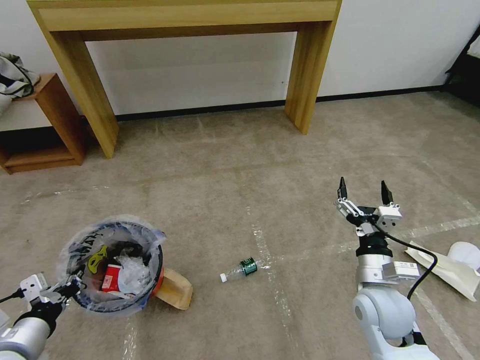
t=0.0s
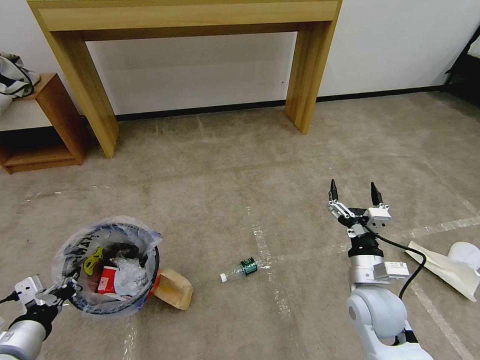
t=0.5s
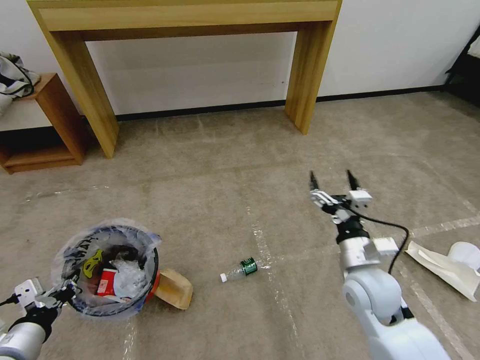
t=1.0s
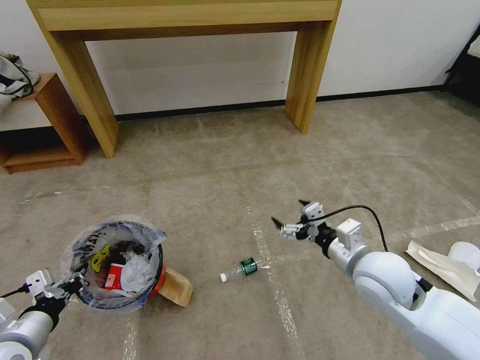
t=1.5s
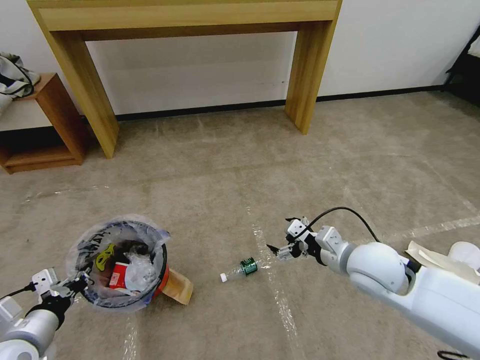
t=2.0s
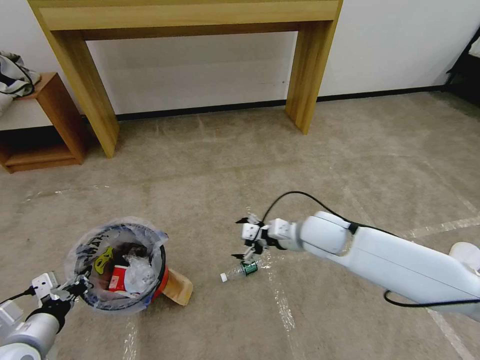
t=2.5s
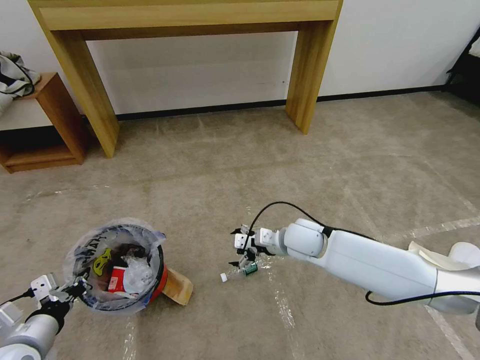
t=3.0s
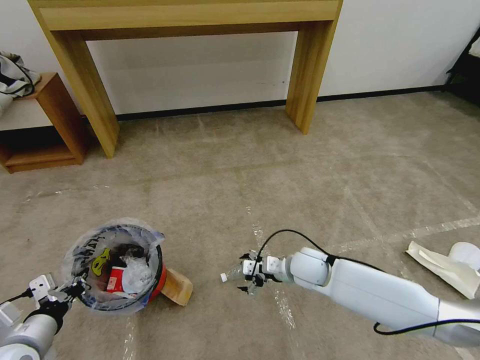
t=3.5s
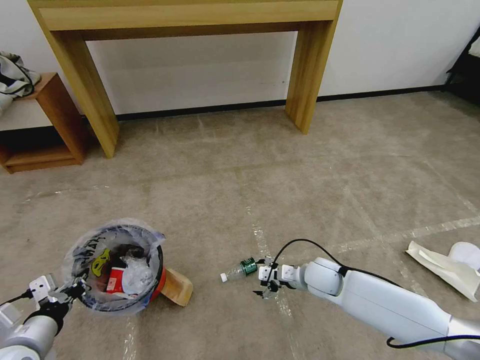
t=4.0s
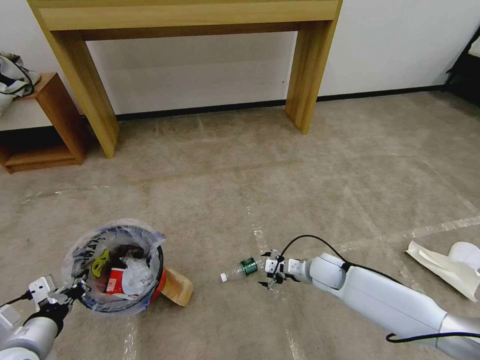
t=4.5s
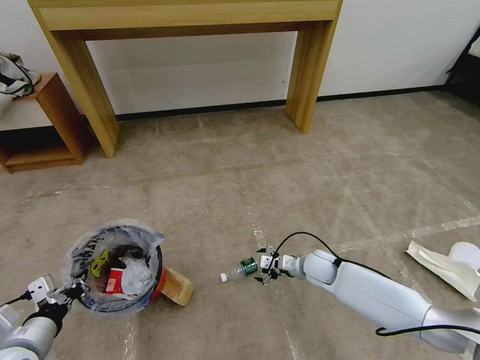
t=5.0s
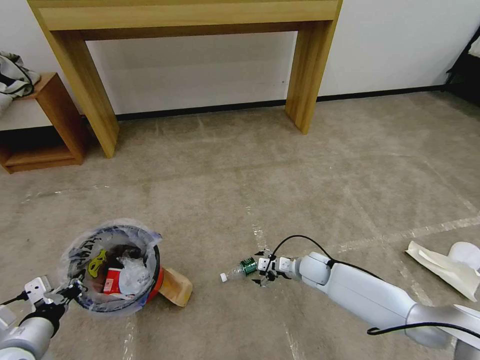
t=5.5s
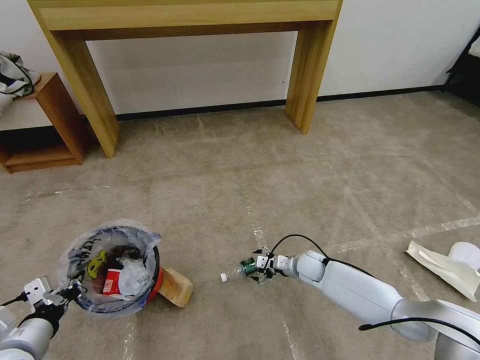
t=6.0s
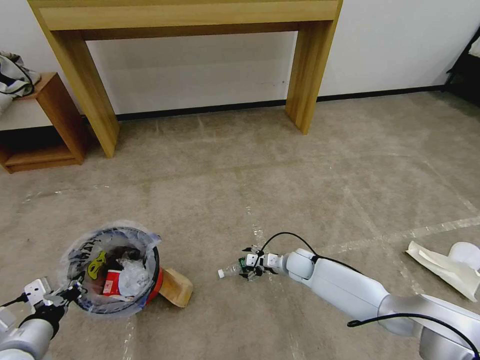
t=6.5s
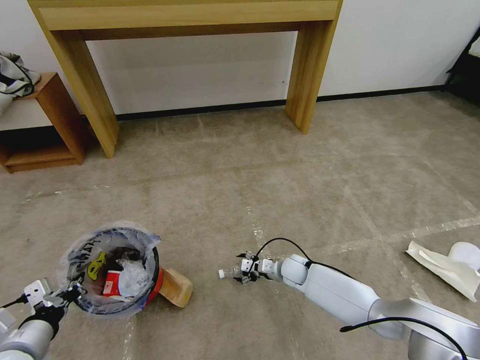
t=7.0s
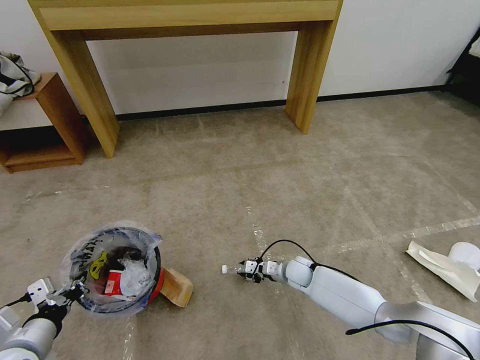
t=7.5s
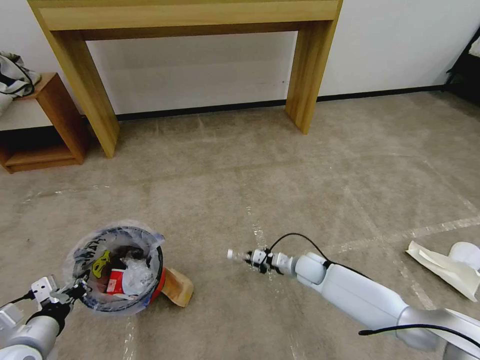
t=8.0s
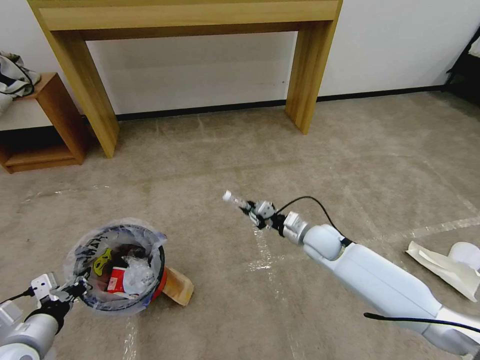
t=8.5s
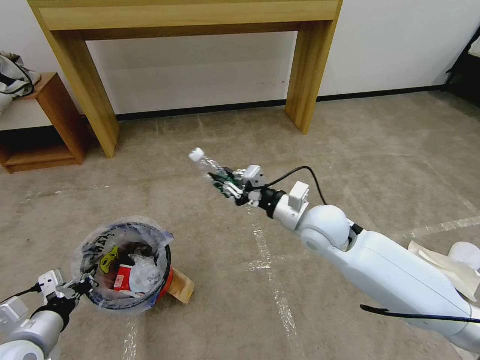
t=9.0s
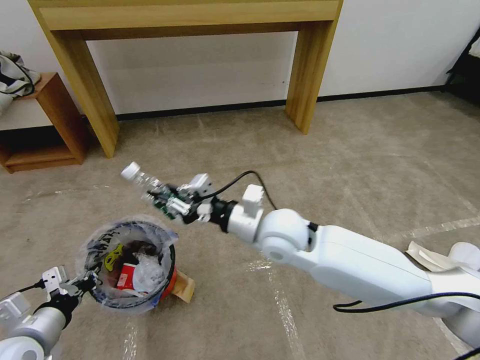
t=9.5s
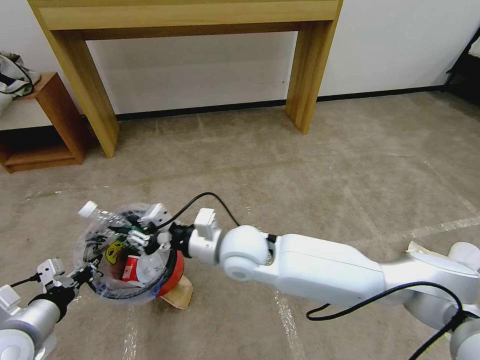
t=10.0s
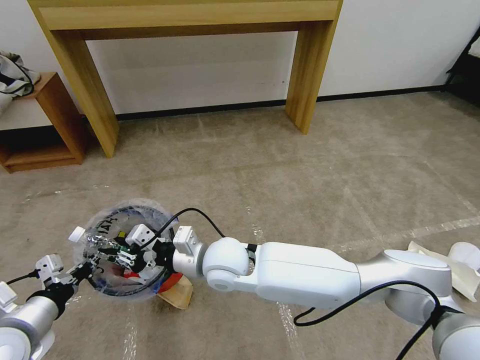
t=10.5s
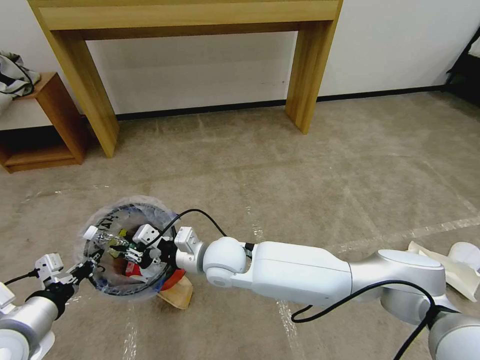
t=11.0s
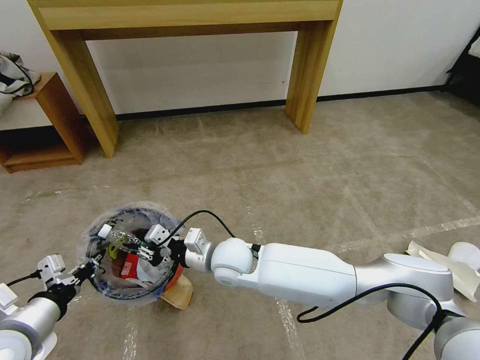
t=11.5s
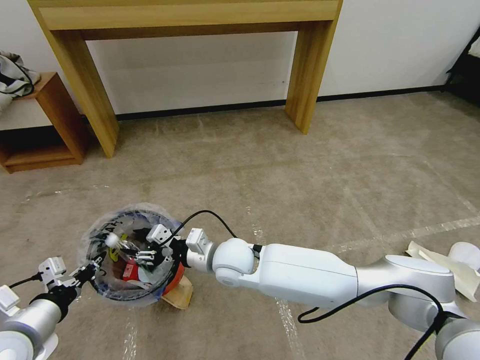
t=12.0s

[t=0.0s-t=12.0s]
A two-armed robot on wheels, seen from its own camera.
Task of the whole recording: Pick up the trash bin and place the garbage on the floor into it.
t=0.0s to t=2.0s: The right gripper goes about 10 cm upward and forward.
t=2.0s to t=4.0s: The right gripper travels downward by approximately 15 cm.
t=4.0s to t=6.0s: The right gripper goes approximately 10 cm downward and forward.
t=6.0s to t=8.0s: The right gripper closes up.
t=8.0s to t=10.0s: The left gripper heads upward, covering about 5 cm. The right gripper is displaced upward and to the left by approximately 35 cm.
t=10.0s to t=12.0s: The right gripper goes about 10 cm downward, and opens.

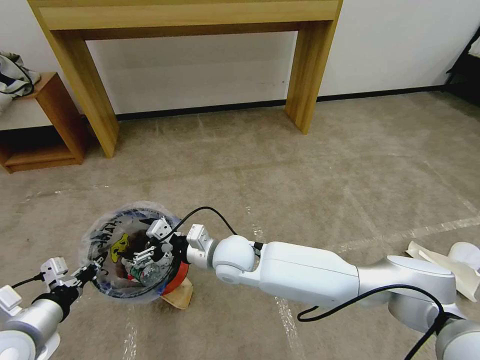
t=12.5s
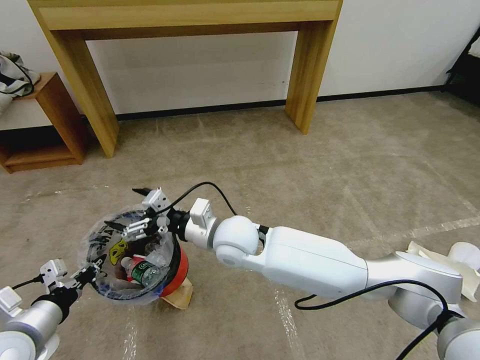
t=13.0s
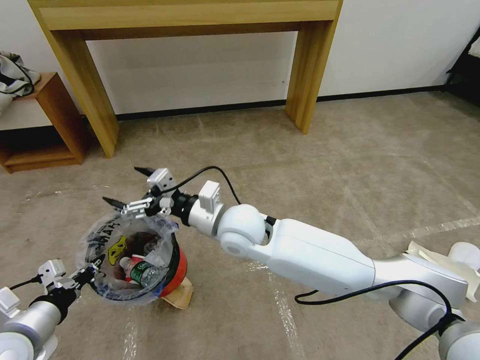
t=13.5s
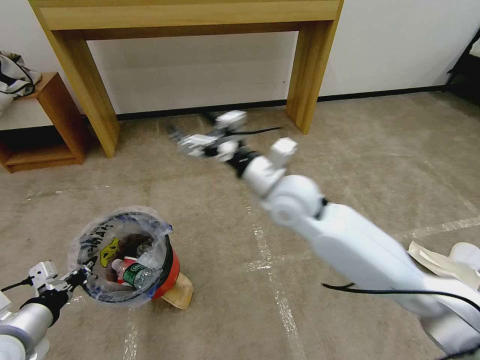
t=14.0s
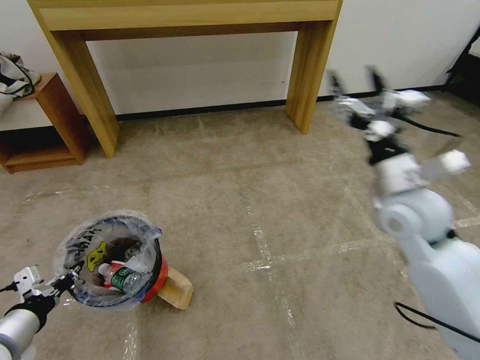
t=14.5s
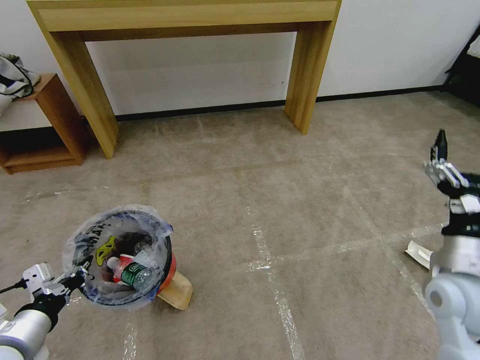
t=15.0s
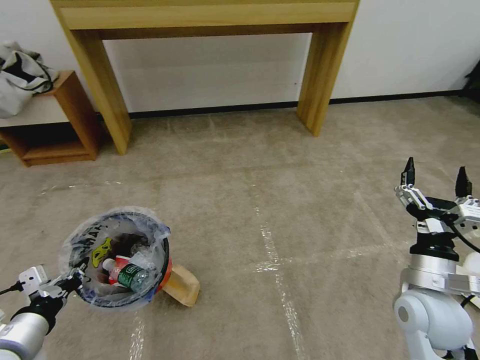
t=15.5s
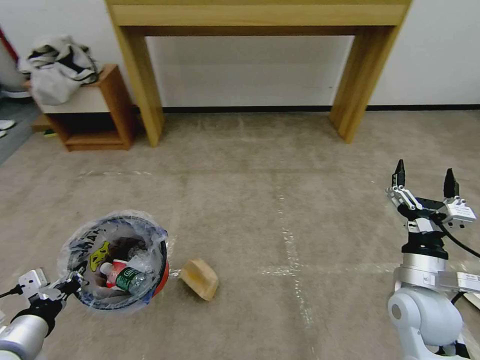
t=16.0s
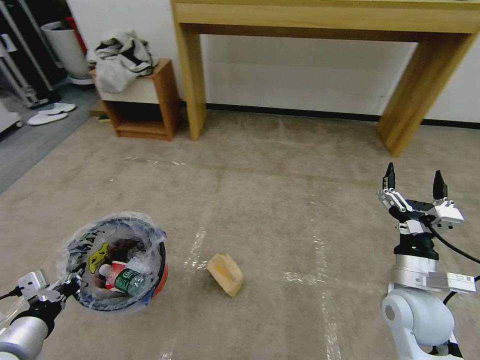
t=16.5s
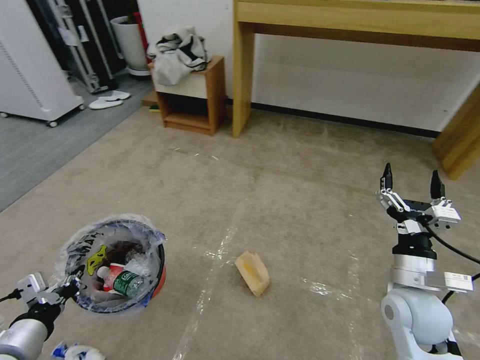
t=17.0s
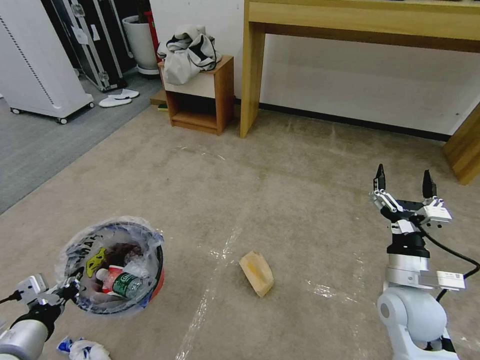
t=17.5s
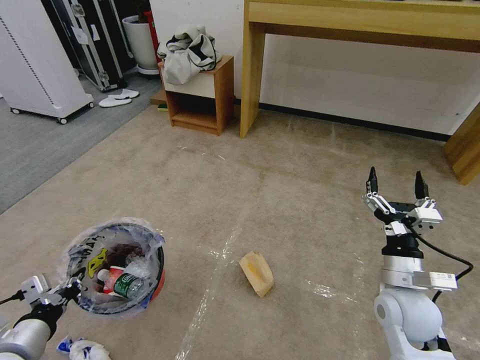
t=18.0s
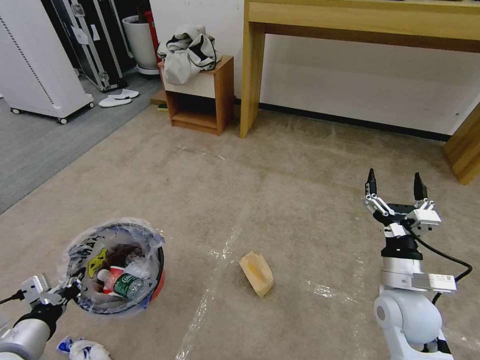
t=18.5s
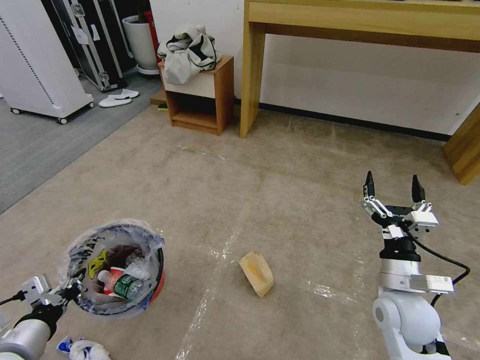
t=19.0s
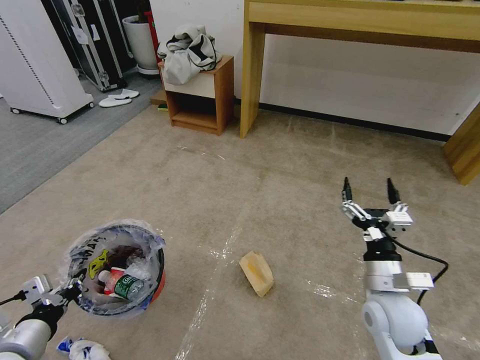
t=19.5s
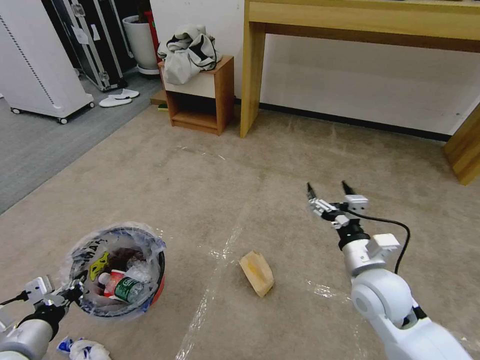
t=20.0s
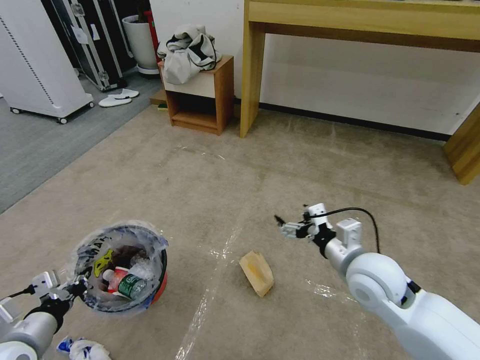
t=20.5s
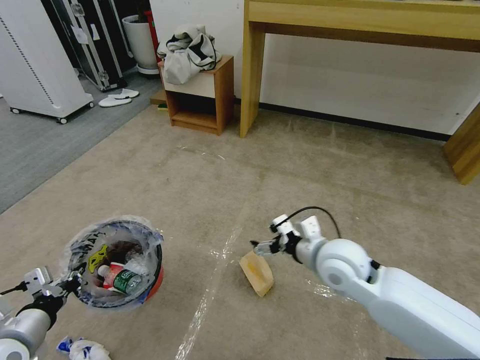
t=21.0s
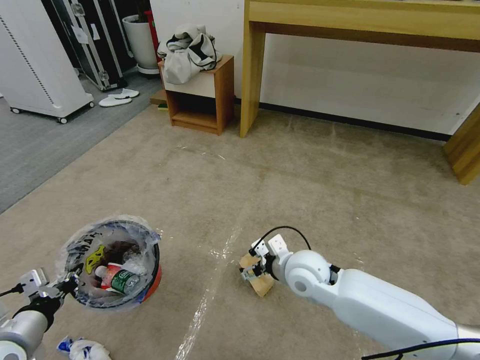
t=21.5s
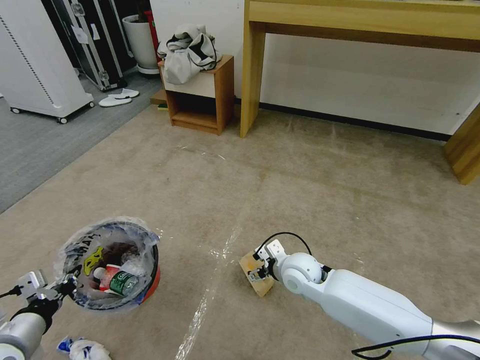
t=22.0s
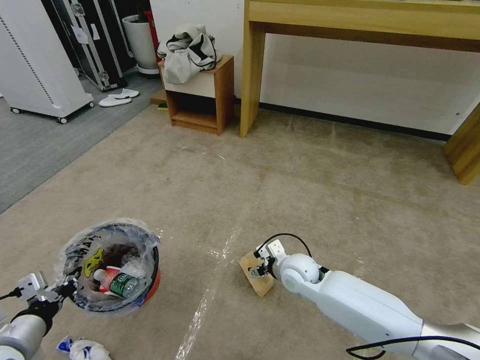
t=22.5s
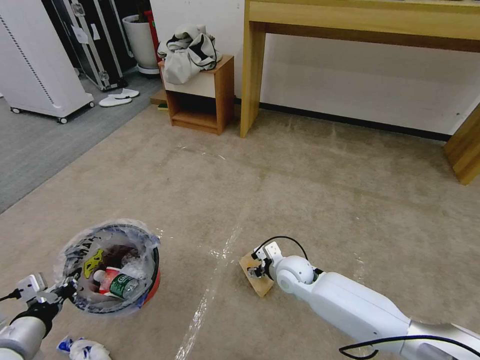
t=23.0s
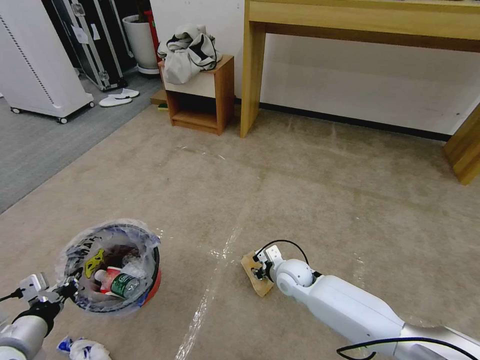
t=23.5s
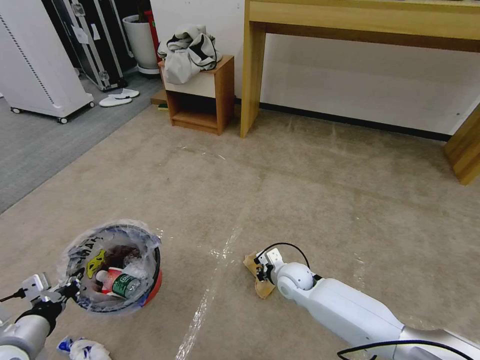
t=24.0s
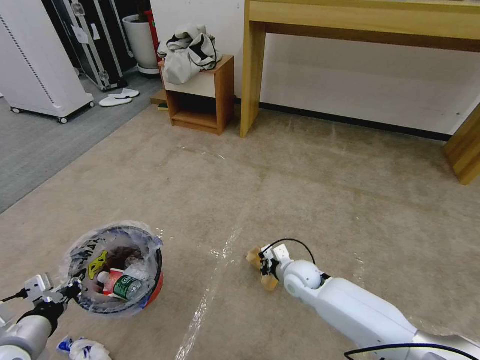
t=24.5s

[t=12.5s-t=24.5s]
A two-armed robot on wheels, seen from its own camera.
Task of the whole recording: Pick up the trash bin and place the garbage on the floor into it.
t=12.5s to t=14.5s: The right gripper heads to the right and upward, covering some 35 cm.
t=14.5s to t=16.5s: The right gripper goes some 20 cm downward and backward.
t=18.5s to t=20.5s: The right gripper is displaced to the left by some 5 cm.
t=20.5s to t=22.5s: The right gripper travels downward, to the left and forward by roughly 20 cm.
t=22.5s to t=24.5s: The right gripper closes up.

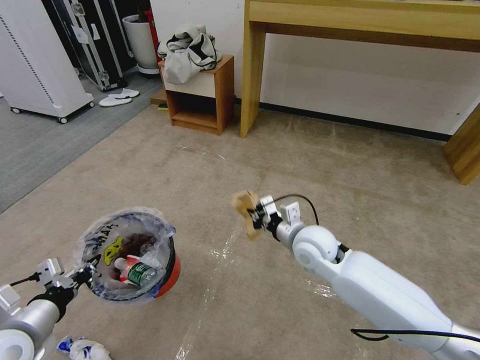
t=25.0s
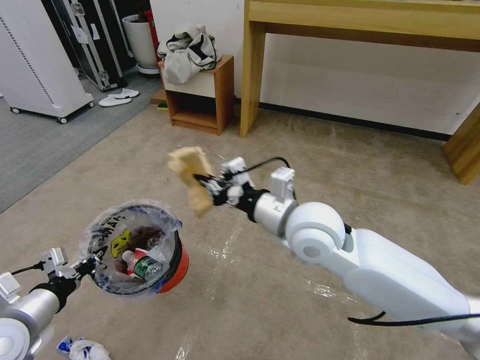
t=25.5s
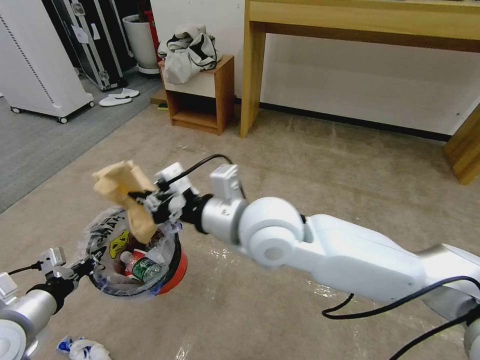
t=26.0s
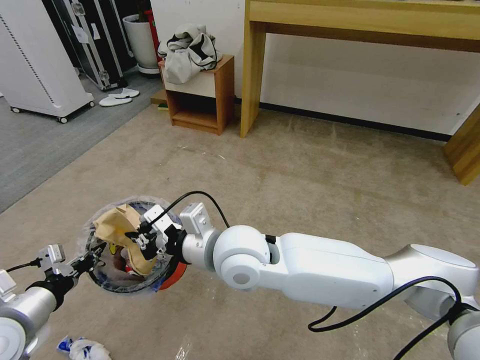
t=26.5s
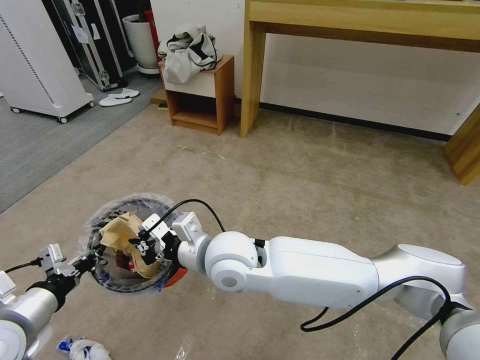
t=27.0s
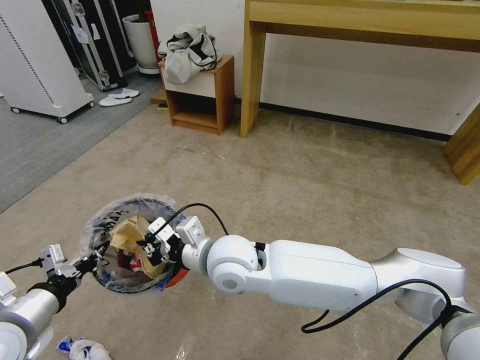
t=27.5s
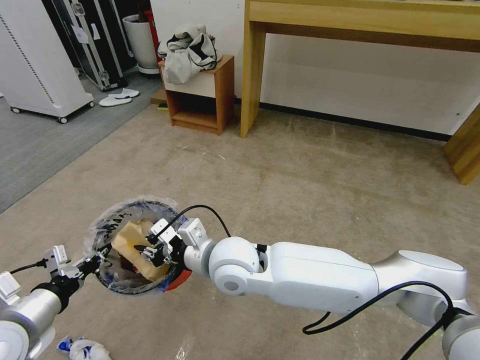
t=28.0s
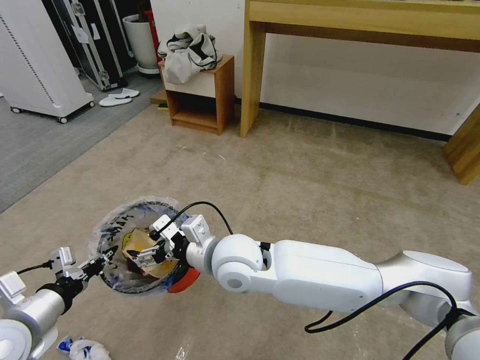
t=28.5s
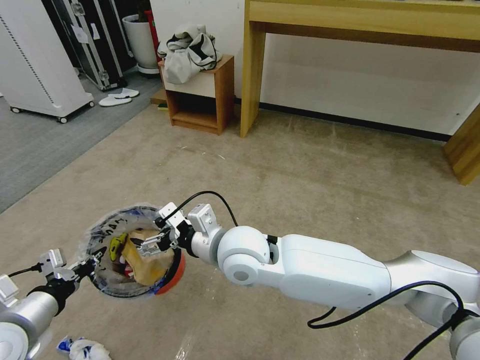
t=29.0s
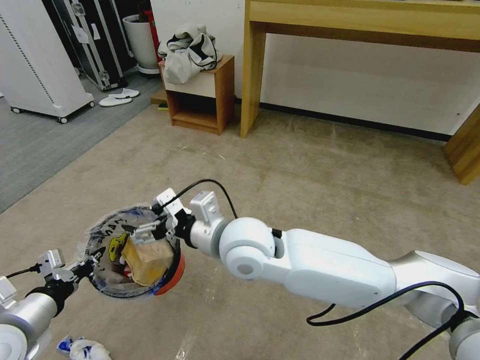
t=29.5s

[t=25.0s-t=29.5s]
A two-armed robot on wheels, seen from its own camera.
Task of the whole recording: Pick up the trash bin and place the garbage on the floor into it.
t=25.0s to t=27.0s: The right gripper moves to the left and upward, some 20 cm.
t=27.0s to t=29.5s: The right gripper opens up.
